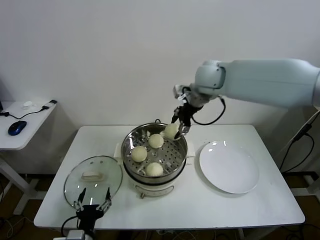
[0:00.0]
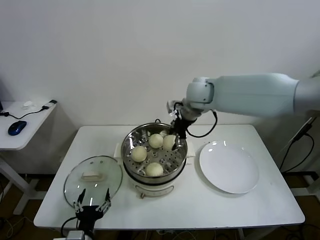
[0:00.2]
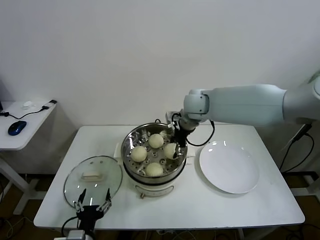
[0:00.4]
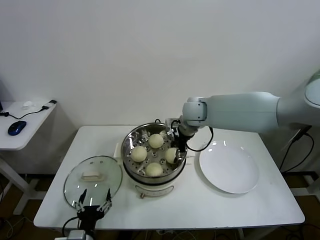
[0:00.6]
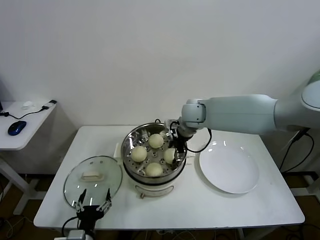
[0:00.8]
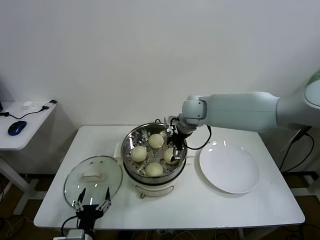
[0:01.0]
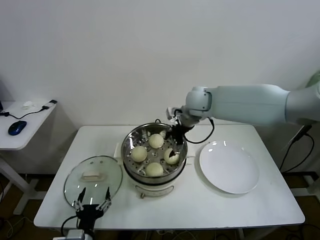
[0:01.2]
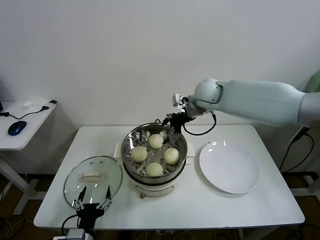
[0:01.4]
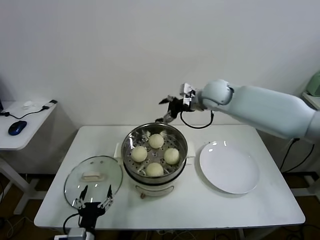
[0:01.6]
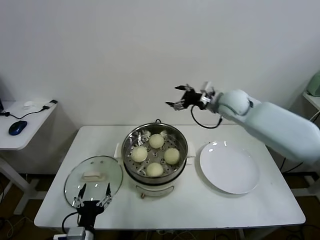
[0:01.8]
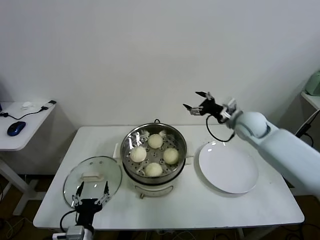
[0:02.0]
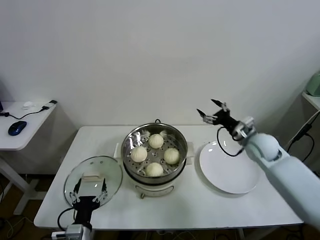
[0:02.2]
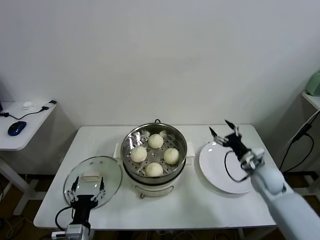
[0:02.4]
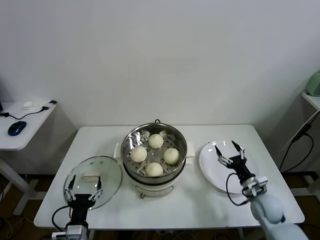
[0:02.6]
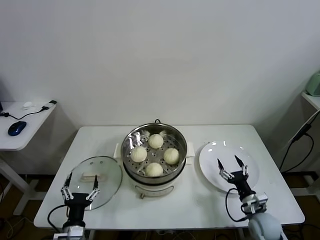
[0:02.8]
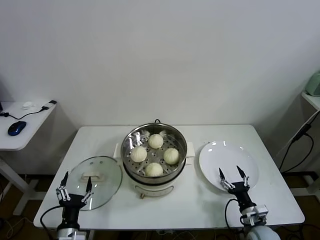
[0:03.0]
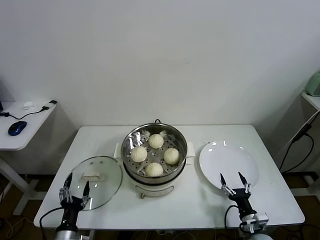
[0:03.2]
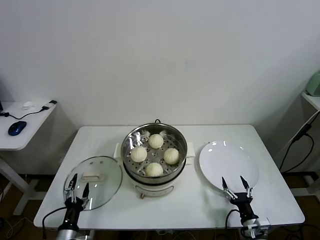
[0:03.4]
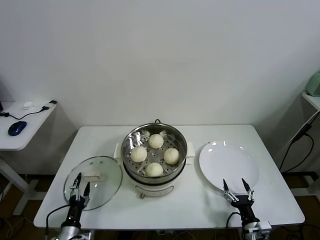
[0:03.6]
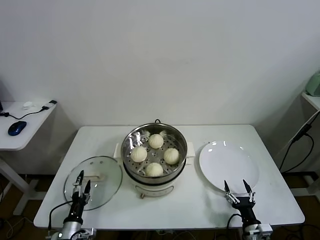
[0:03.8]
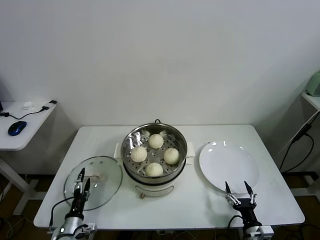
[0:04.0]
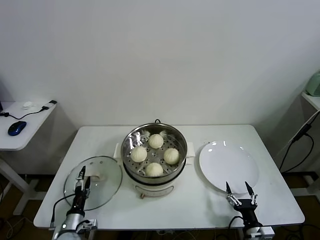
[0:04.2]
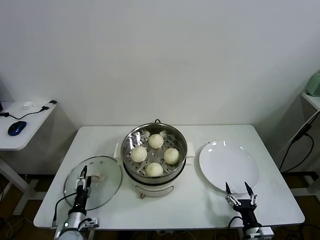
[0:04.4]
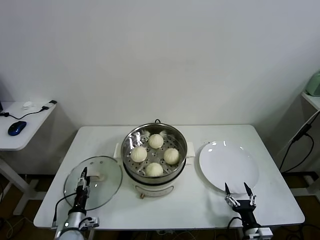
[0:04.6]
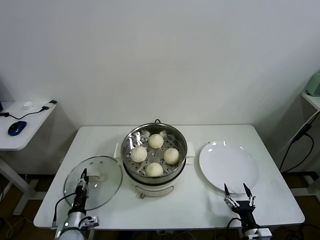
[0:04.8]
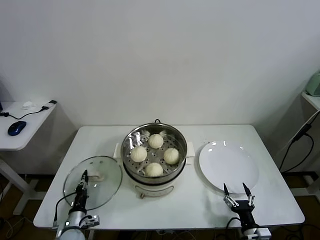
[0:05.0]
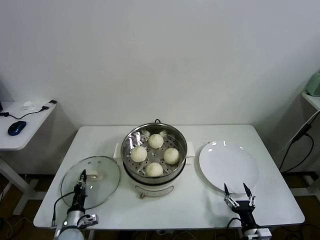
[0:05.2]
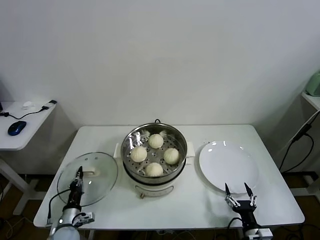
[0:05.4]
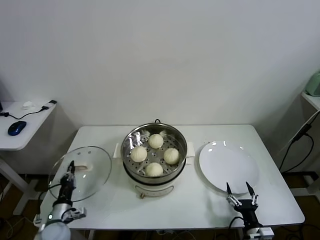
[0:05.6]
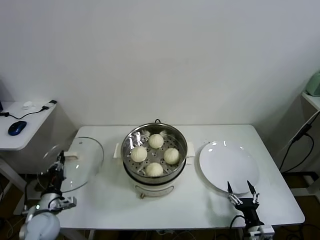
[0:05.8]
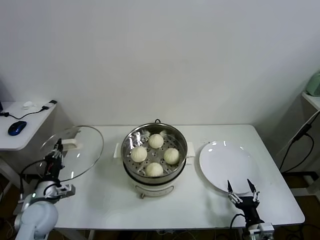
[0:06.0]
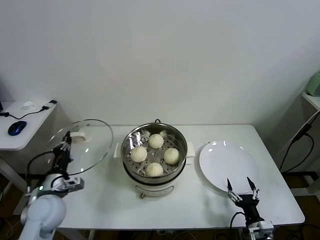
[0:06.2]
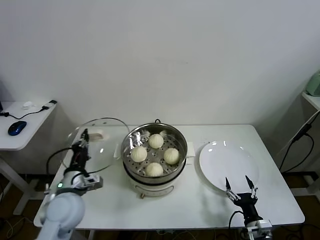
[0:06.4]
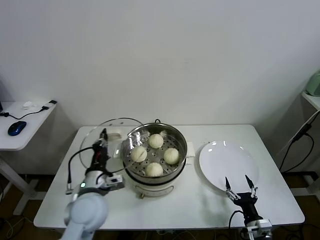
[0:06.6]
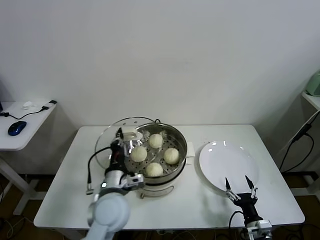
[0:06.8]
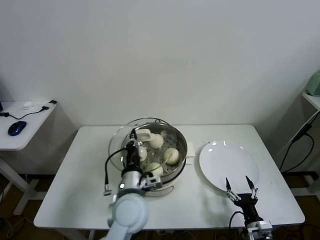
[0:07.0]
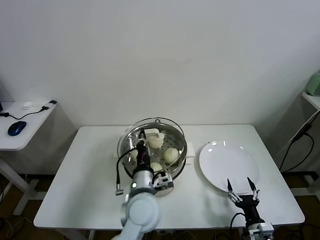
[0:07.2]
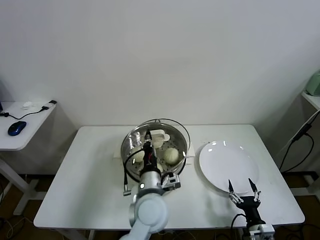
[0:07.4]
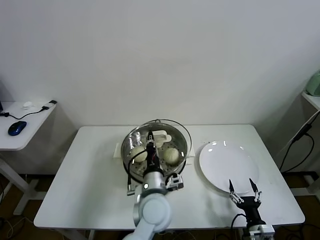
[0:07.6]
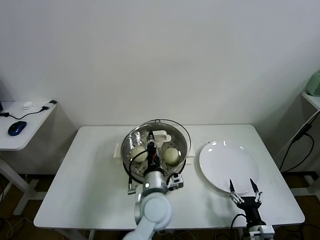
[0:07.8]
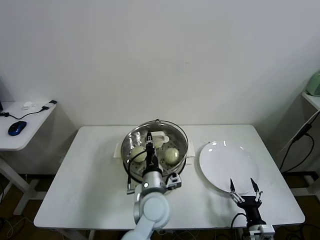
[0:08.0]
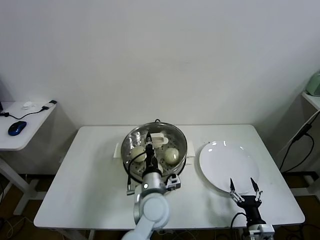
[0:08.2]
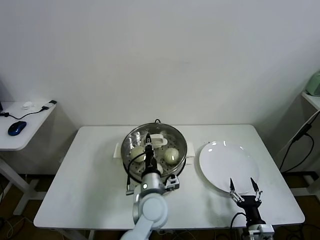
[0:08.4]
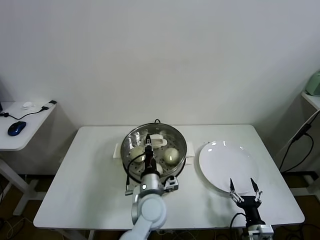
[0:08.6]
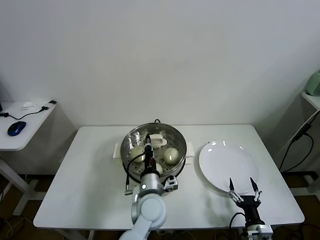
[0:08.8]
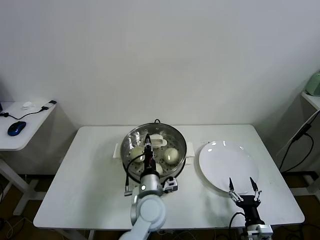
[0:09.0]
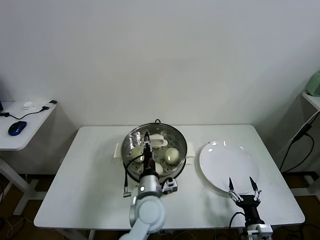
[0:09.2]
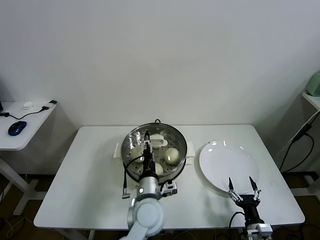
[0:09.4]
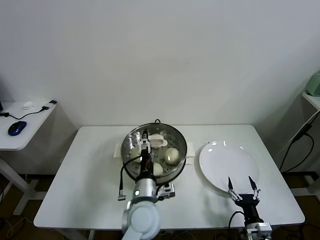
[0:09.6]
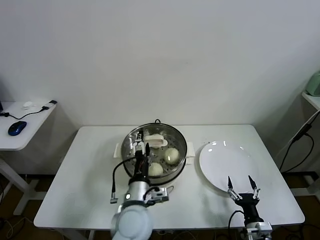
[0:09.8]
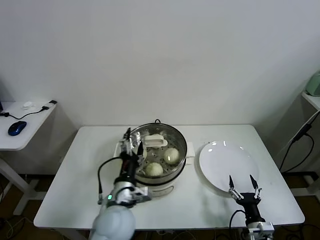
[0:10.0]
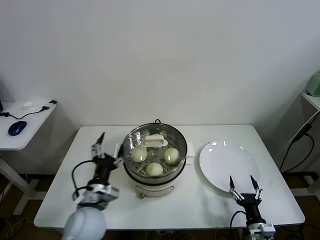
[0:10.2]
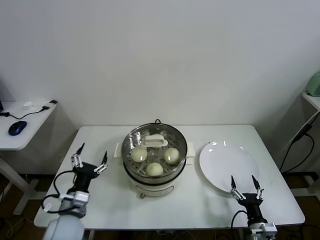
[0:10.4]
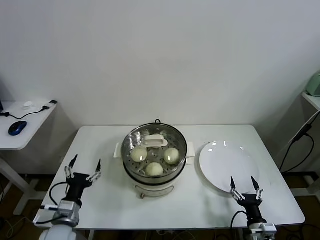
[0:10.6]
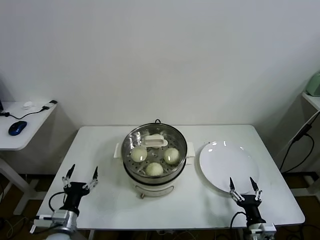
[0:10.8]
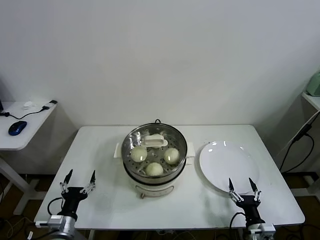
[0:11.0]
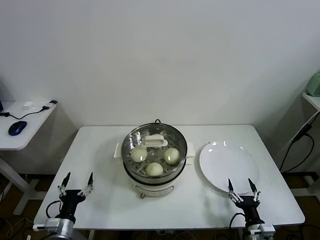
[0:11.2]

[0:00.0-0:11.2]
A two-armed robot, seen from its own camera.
Task of the whole recording: take steamed baozi put them in steamer.
Step, 0:00.0 to 0:01.2: Place the baozi on the steamer with right gripper.
Step, 0:01.4 to 0:05.2: Grasp the pot lid with left gripper.
Step, 0:05.4 to 0:09.6: Place the pot lid on the steamer with left gripper.
0:00.0 to 0:01.6: The right gripper goes approximately 5 cm downward, and opens.
0:01.6 to 0:03.2: The right gripper is displaced downward and backward by approximately 50 cm, while the left gripper moves to the left and downward, roughly 10 cm.
0:03.2 to 0:04.8: The left gripper travels forward and downward by some 10 cm, and closes.
0:04.8 to 0:06.4: The left gripper travels upward by some 25 cm, and closes its fingers.
0:06.4 to 0:08.0: The left gripper heads to the right, covering approximately 25 cm.
0:08.0 to 0:09.6: The left gripper opens.
0:09.6 to 0:11.2: The left gripper is displaced to the left by approximately 30 cm.

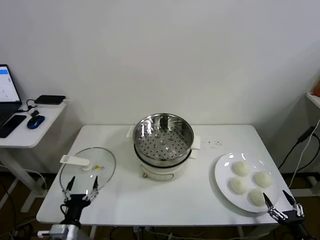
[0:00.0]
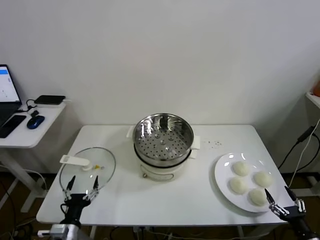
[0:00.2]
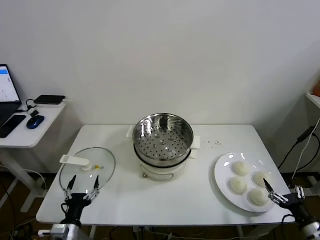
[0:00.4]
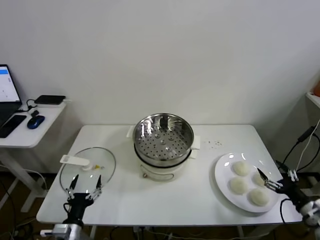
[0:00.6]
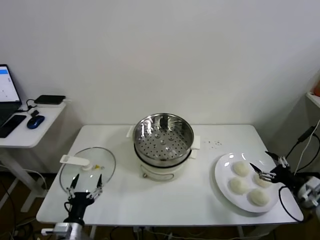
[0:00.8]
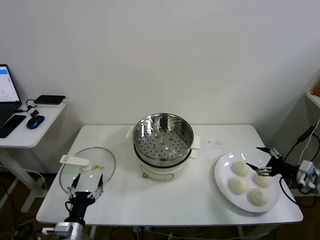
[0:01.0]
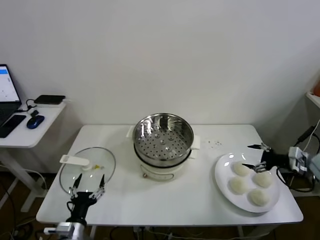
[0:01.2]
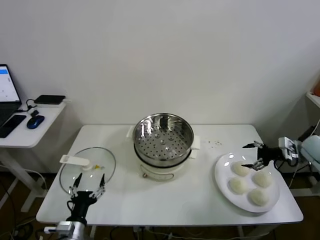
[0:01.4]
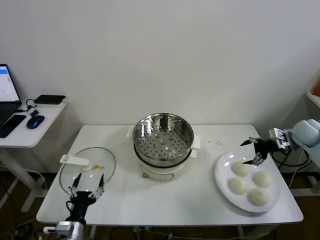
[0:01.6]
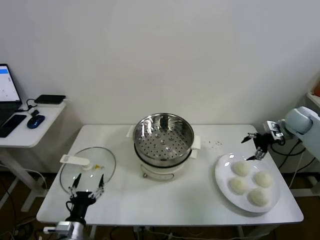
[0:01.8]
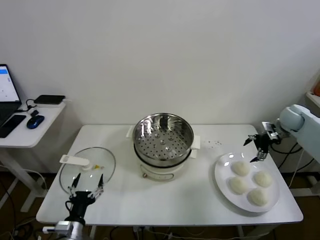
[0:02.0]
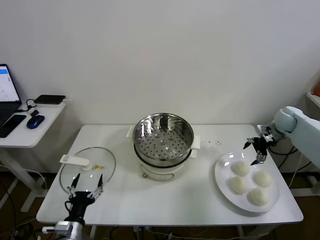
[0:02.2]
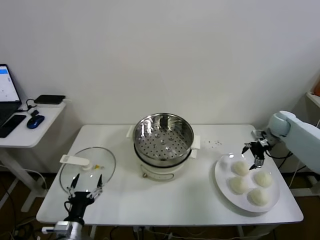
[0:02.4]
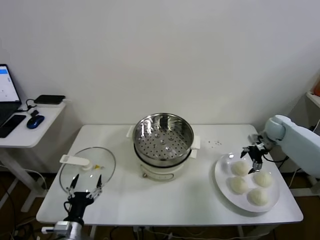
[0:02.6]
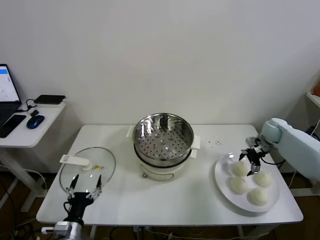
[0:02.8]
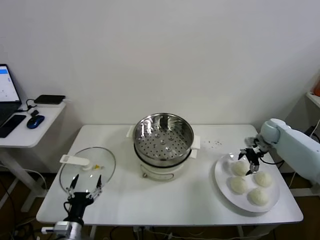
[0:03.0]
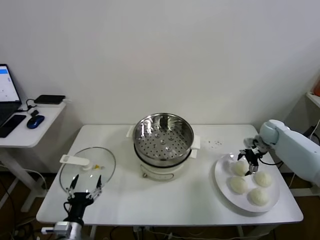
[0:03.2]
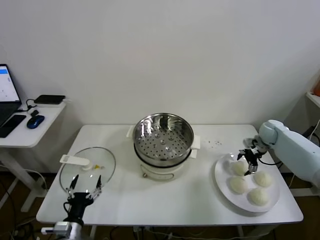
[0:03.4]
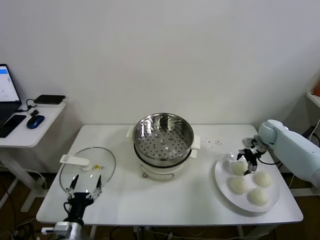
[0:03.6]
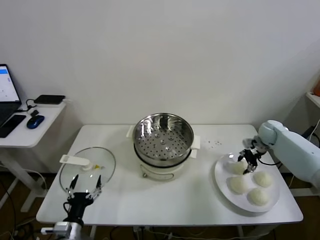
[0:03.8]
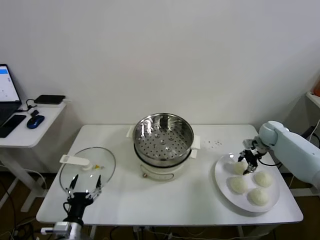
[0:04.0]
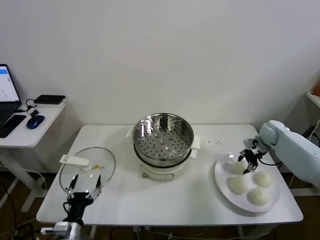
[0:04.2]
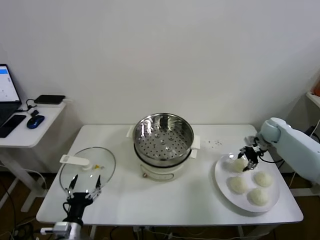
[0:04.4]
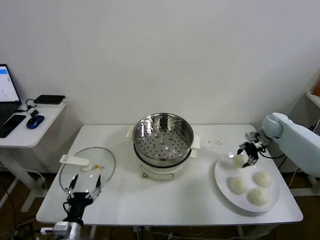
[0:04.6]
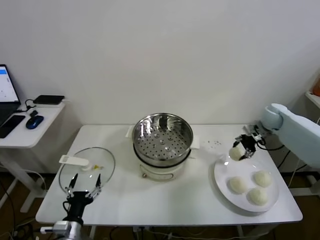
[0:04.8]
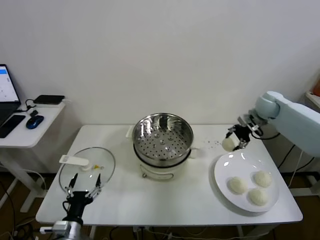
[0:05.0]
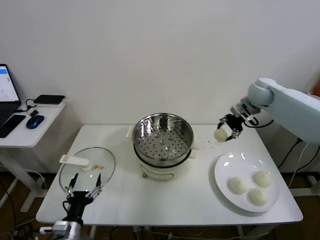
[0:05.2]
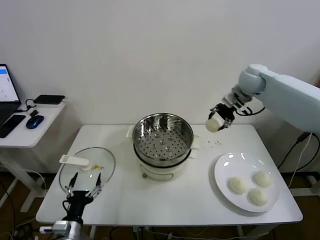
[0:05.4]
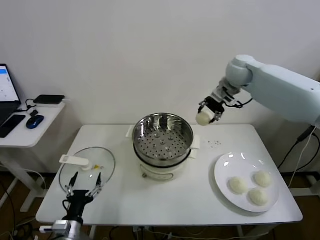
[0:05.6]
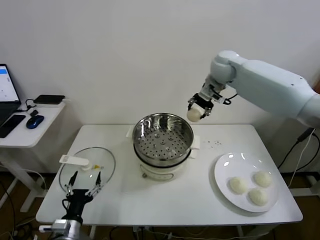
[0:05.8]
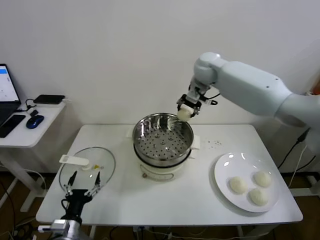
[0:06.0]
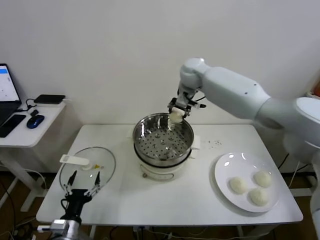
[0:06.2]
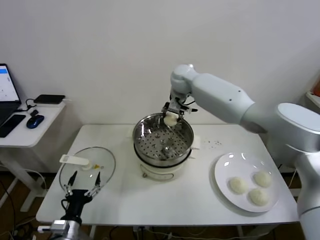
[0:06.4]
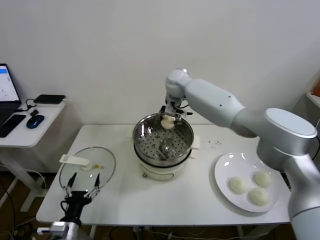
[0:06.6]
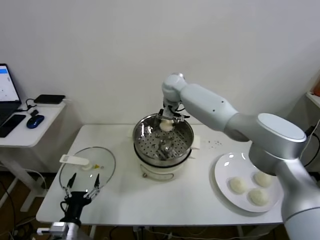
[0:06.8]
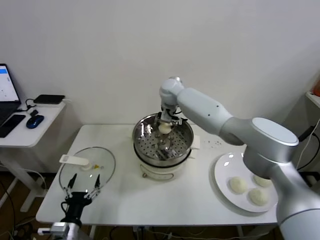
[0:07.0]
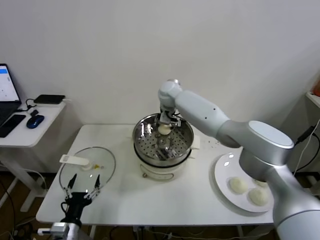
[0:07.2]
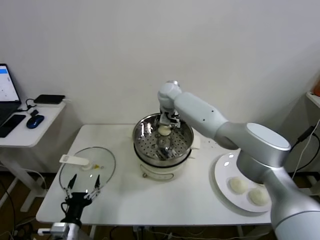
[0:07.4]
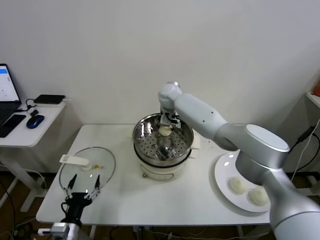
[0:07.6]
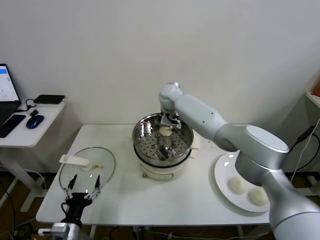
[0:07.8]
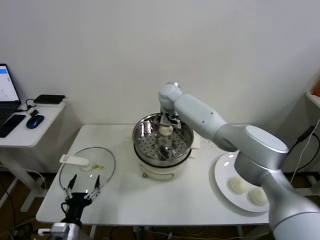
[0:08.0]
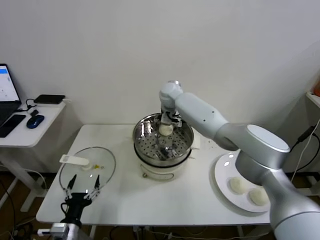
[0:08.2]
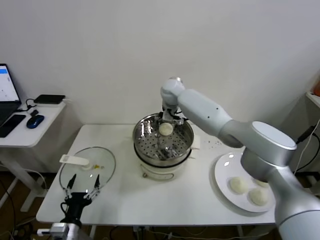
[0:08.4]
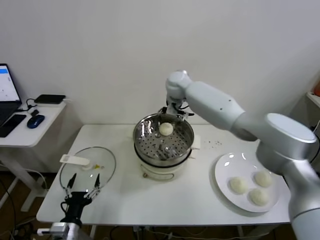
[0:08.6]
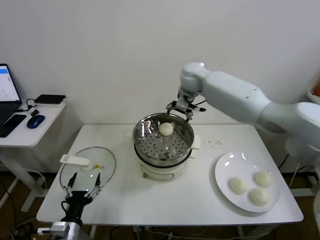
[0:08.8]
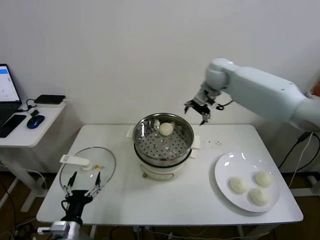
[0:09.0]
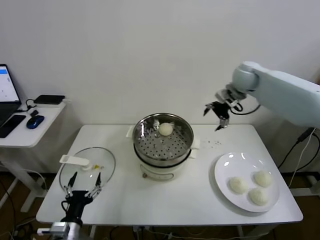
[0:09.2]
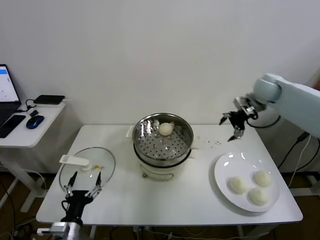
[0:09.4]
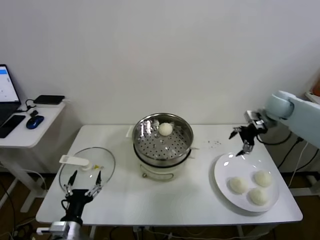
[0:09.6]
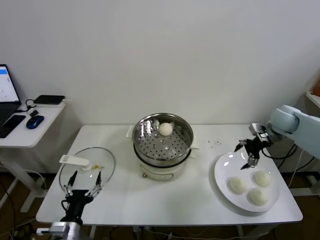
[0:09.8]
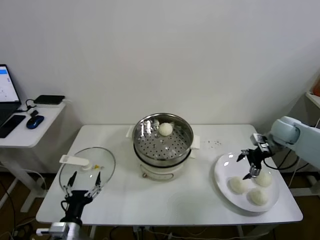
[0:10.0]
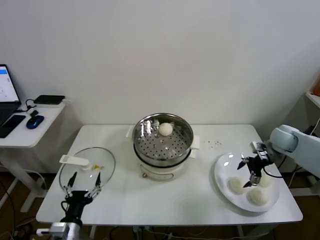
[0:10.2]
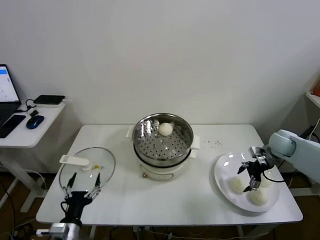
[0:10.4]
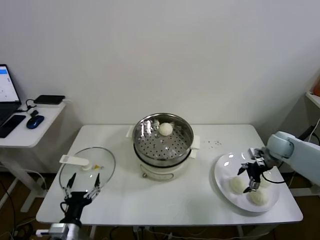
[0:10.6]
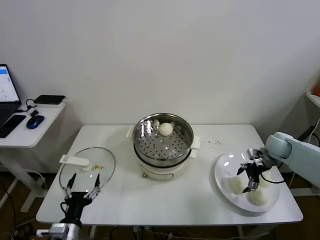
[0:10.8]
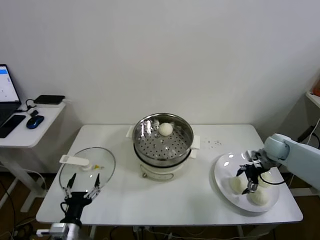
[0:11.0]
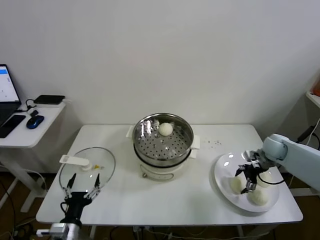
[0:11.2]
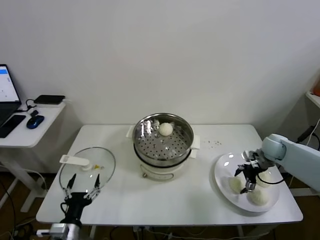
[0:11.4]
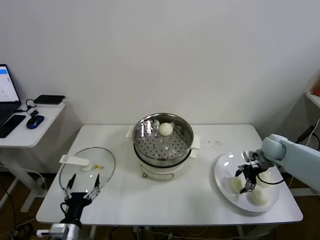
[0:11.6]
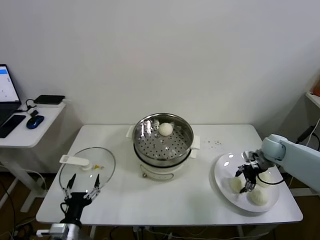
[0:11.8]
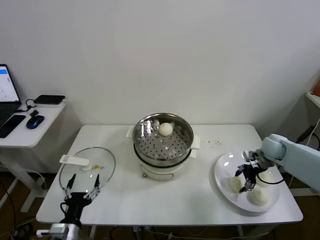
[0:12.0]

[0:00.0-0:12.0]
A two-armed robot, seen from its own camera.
Task of the whole recording: take steamed baozi put them in steamer.
Step, 0:00.0 to 0:03.8: Grasp the baozi in the plate with right gripper.
Step, 0:04.0 to 0:08.2: Place the baozi on the steamer with right gripper.
Step, 0:08.4 to 0:11.8: Grasp the baozi in the plate with right gripper.
0:01.6 to 0:03.0: The right gripper moves downward, approximately 10 cm.
0:03.0 to 0:04.4: The right gripper closes its fingers.
0:04.4 to 0:06.0: The right gripper moves to the left and upward, roughly 40 cm.
0:06.0 to 0:07.6: The right gripper travels downward and to the left by approximately 15 cm.
0:07.6 to 0:09.0: The right gripper moves to the right and upward, about 25 cm, and opens up.
0:09.0 to 0:10.4: The right gripper heads downward, to the right and backward, covering approximately 30 cm.
0:10.4 to 0:12.0: The right gripper closes its fingers.
